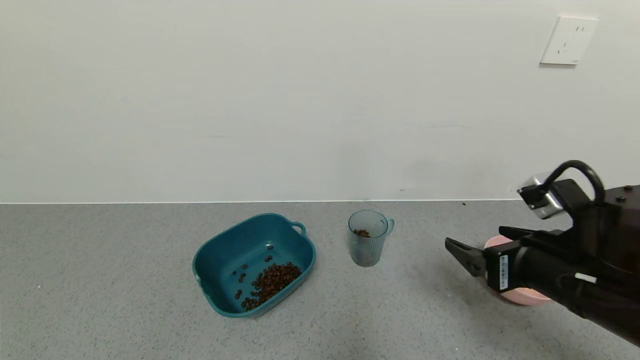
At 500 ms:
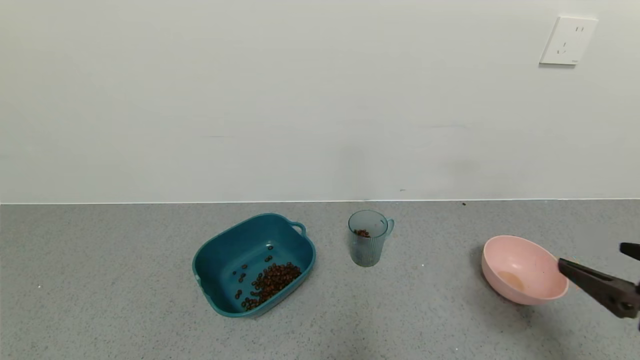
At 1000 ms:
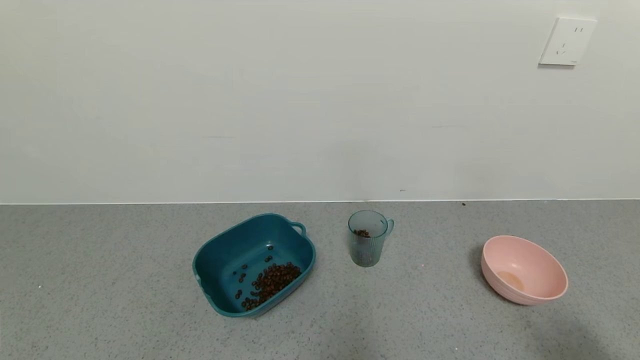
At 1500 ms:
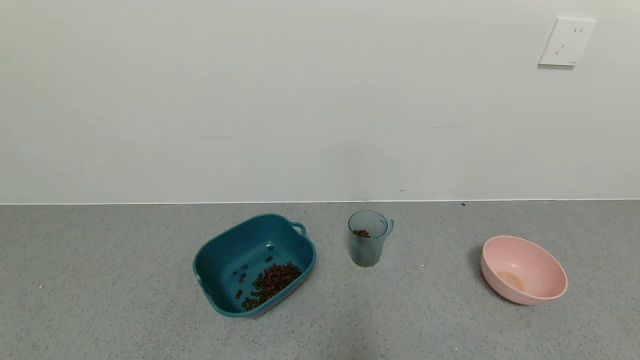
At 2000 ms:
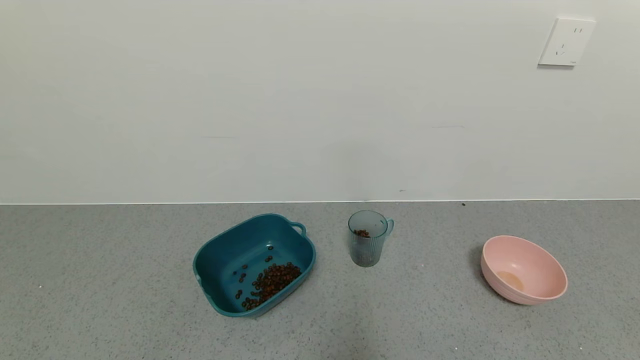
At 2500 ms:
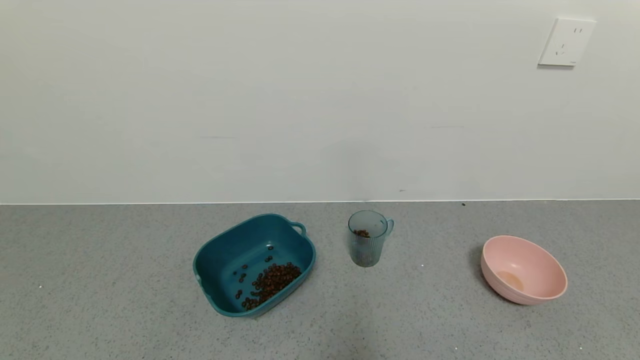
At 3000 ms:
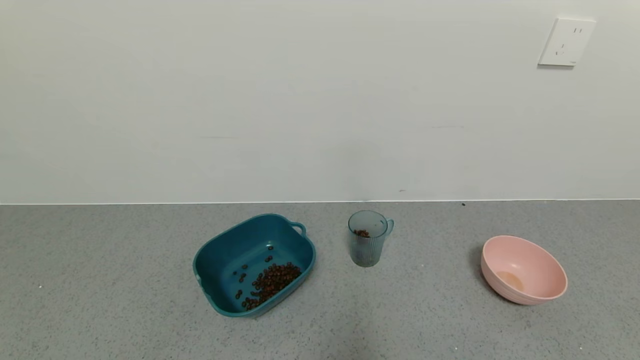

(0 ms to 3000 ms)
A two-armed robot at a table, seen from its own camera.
Task of the whole recording: use a gripper to pick up the cup and pour the solid into a bowl or tray.
0 ms - 1500 ms: The right gripper travels backward and to the right by approximately 25 cm.
